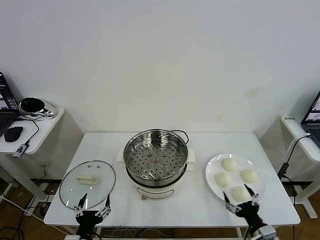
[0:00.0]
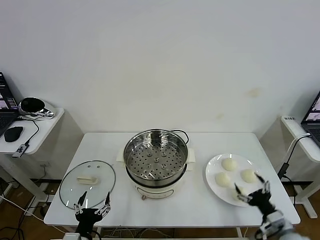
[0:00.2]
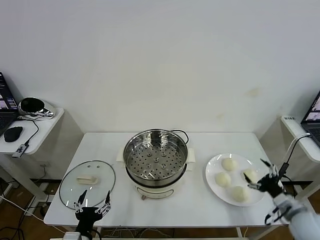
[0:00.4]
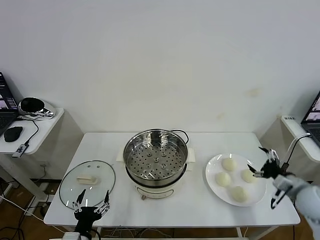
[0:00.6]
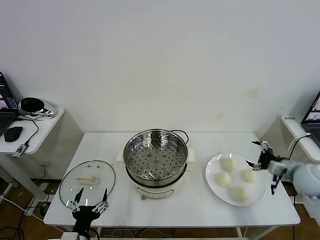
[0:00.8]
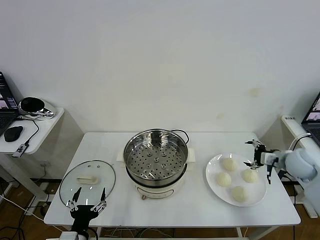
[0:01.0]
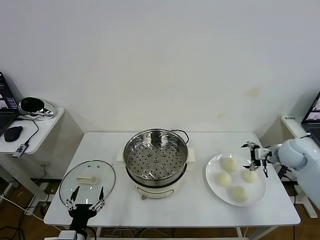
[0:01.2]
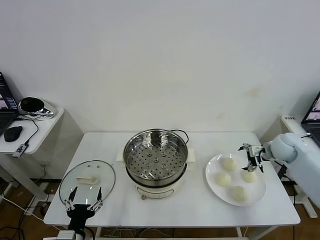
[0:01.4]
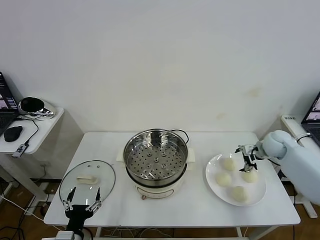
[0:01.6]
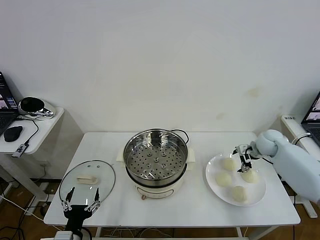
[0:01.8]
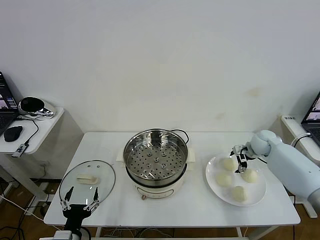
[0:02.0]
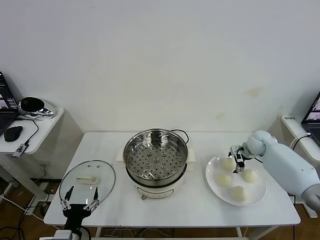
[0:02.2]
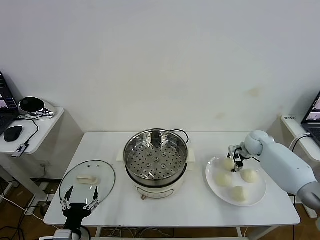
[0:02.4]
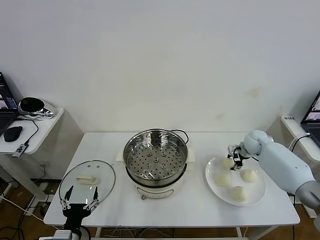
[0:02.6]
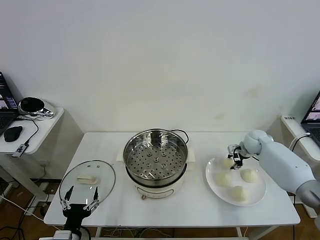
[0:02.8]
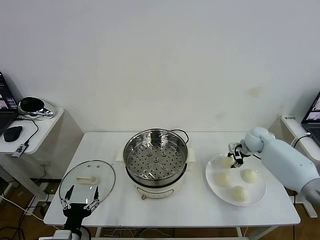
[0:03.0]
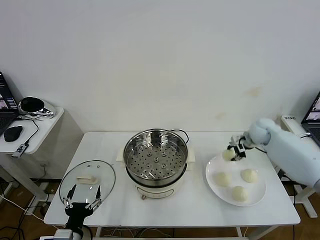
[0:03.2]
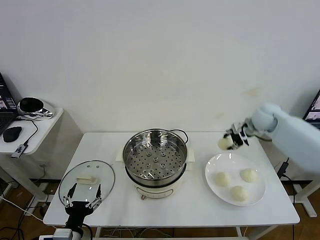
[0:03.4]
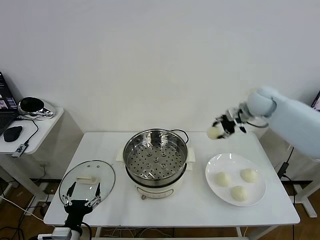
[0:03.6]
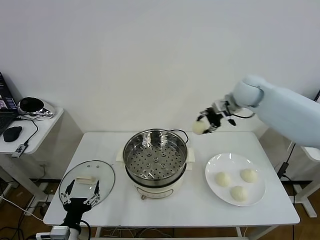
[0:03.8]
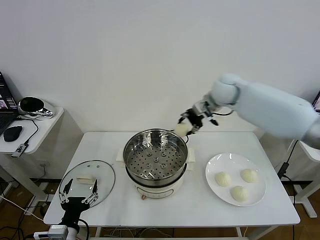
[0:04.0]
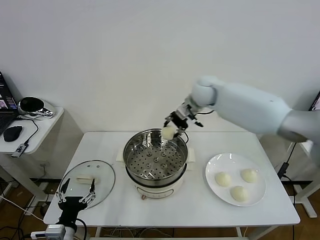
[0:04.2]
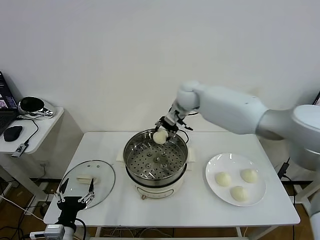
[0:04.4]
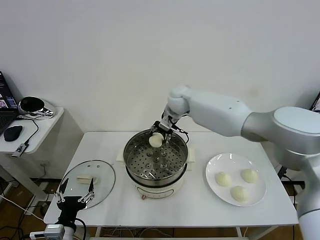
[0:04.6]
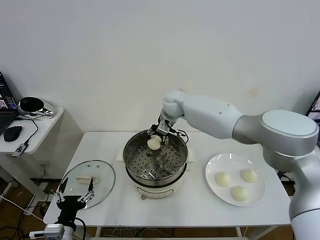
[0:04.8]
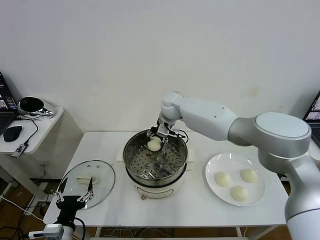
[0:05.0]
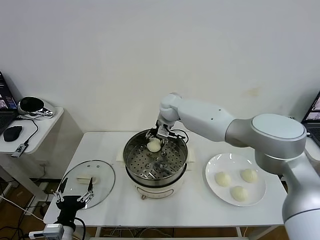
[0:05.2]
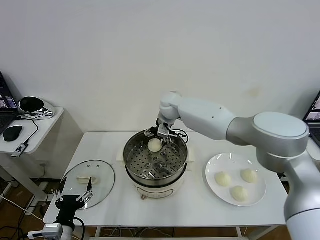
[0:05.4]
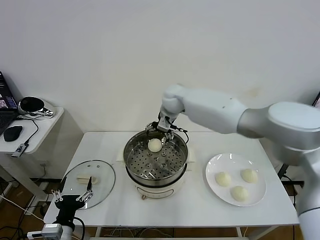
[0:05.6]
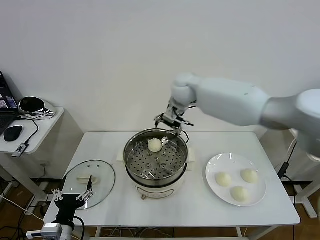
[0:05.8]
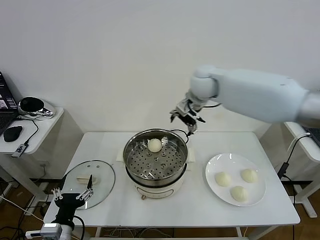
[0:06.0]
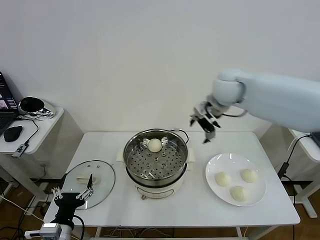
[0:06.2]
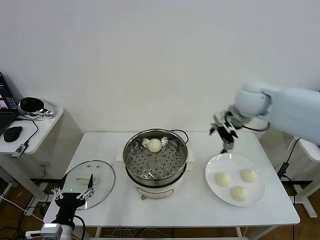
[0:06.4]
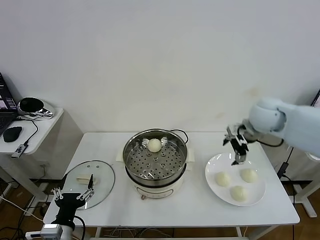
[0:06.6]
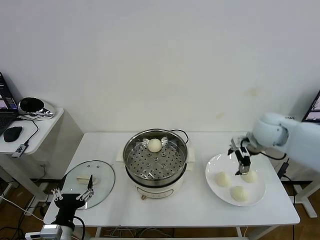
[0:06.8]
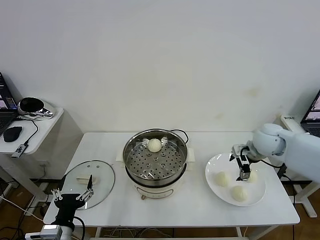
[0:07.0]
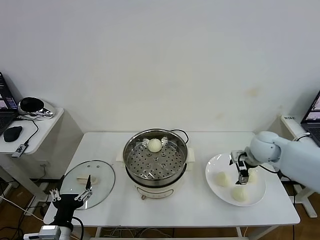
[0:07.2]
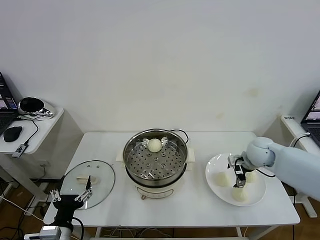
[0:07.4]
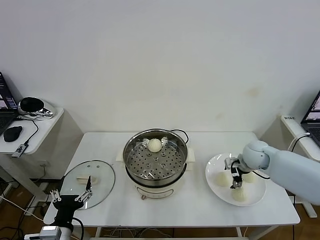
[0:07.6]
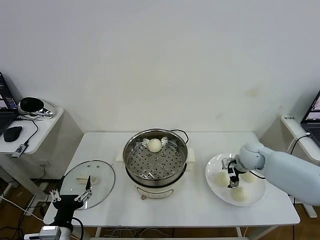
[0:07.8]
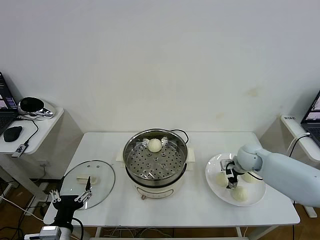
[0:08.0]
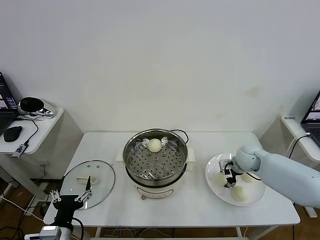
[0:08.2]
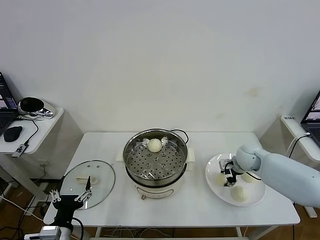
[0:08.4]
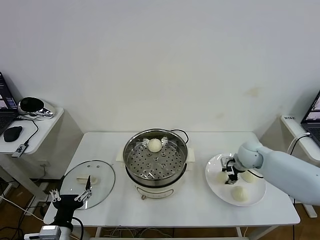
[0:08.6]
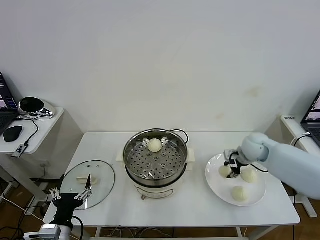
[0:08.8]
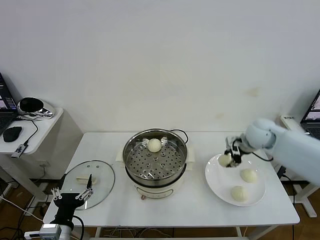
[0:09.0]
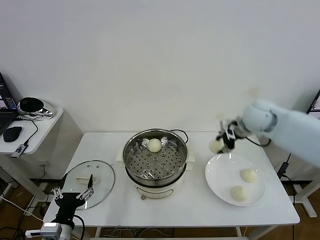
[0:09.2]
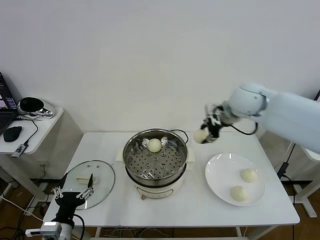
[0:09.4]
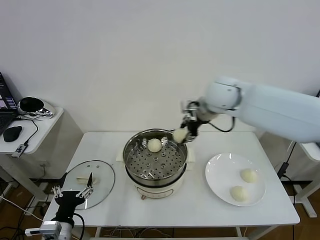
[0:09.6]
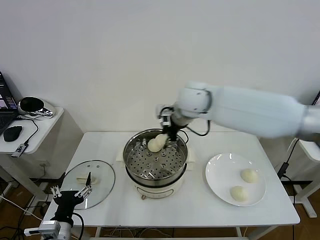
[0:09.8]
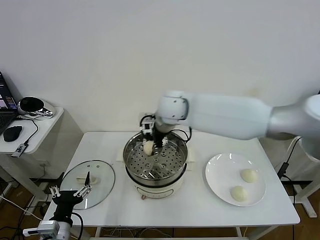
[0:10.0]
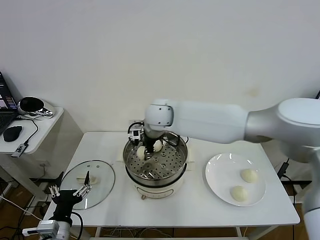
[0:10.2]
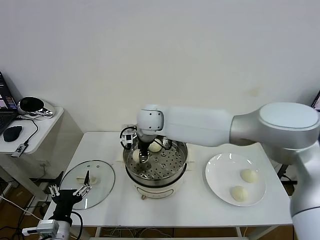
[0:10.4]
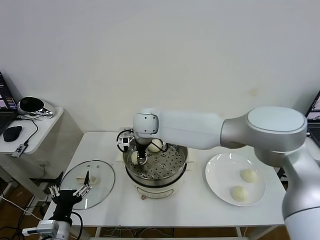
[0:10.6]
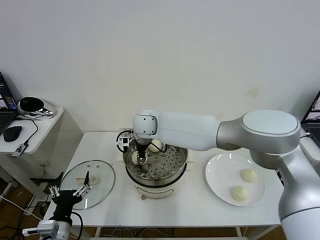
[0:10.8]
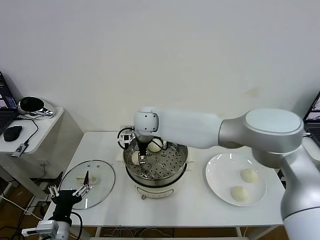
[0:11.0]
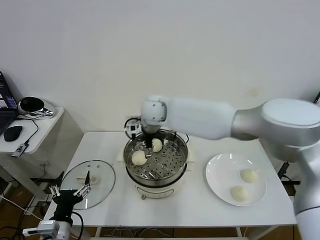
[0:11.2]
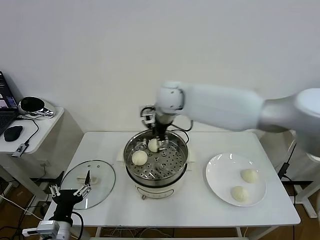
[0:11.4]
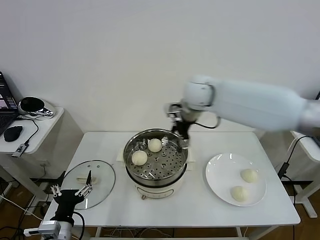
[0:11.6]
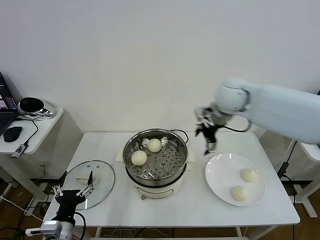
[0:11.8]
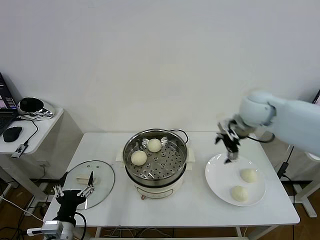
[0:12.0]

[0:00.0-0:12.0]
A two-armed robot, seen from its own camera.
Task of the whole recording: take steamed baozi put them in steamer then cover it.
Step, 0.0 to 2.6 s: Grasp the baozi in the plate with right gripper.
Step, 3.0 to 5.4 s: Place the baozi on the steamer with right gripper.
Step, 5.6 to 8.4 s: Grasp the baozi in the plate with right gripper.
Step, 8.6 to 11.2 s: Place the baozi on the steamer with right gripper.
1.6 to 3.0 s: The right gripper shifts by about 5 cm, and closes its fingers.
3.0 to 4.4 s: The right gripper goes approximately 35 cm to the left and upward.
4.4 to 6.0 s: The right gripper heads upward, to the right and backward, covering approximately 10 cm, and opens its fingers.
6.0 to 7.6 s: The right gripper goes about 30 cm downward and to the right.
7.6 to 9.0 s: The right gripper shifts about 10 cm upward, and closes up.
9.0 to 10.4 s: The right gripper moves to the left, some 35 cm.
10.4 to 12.0 s: The right gripper is displaced to the right by roughly 35 cm, and opens up.

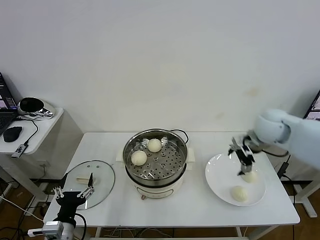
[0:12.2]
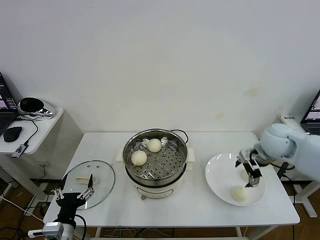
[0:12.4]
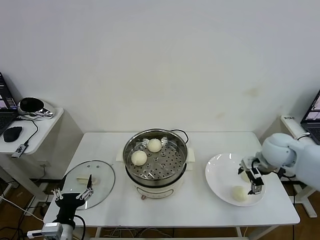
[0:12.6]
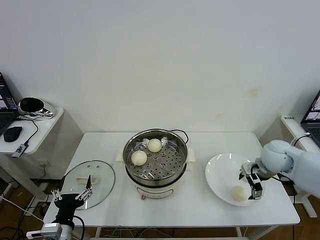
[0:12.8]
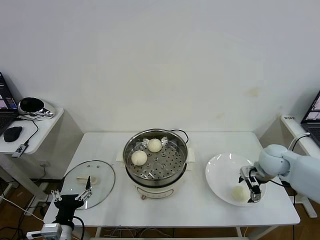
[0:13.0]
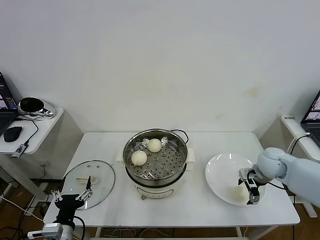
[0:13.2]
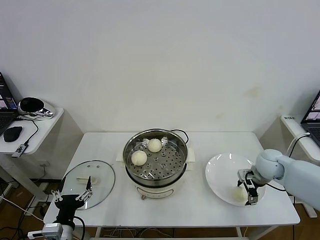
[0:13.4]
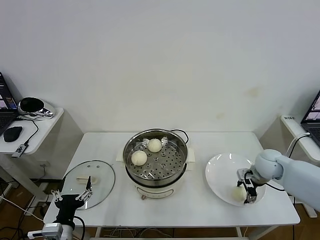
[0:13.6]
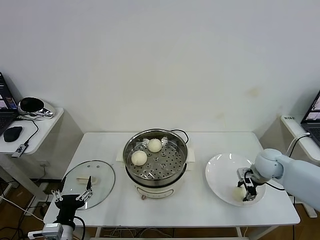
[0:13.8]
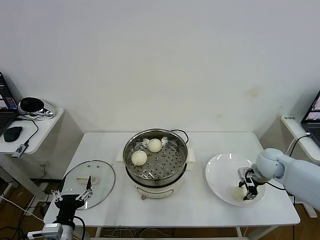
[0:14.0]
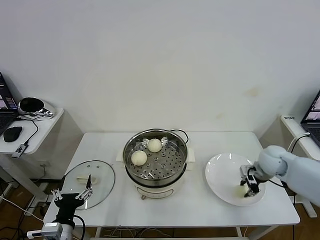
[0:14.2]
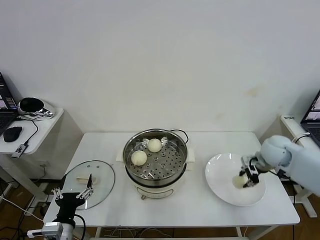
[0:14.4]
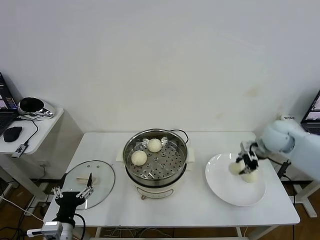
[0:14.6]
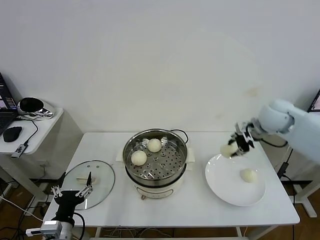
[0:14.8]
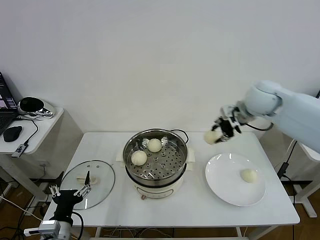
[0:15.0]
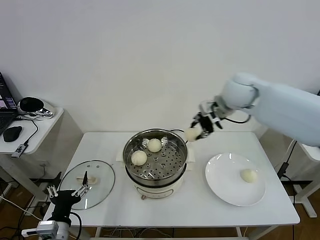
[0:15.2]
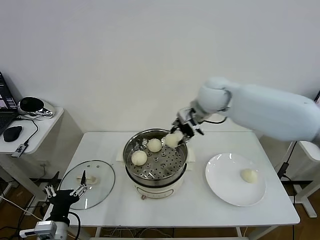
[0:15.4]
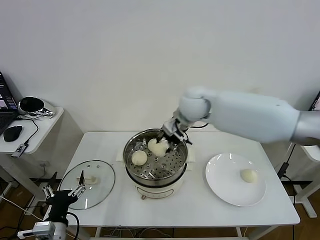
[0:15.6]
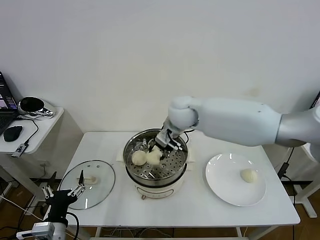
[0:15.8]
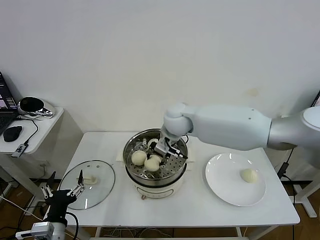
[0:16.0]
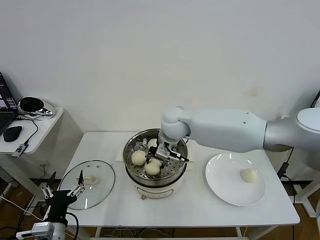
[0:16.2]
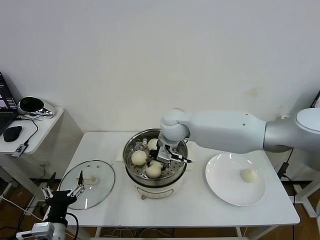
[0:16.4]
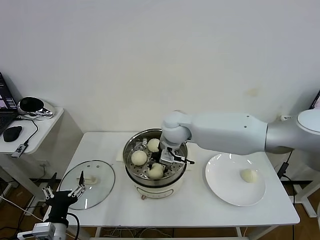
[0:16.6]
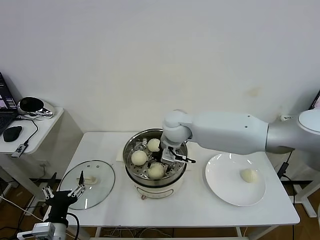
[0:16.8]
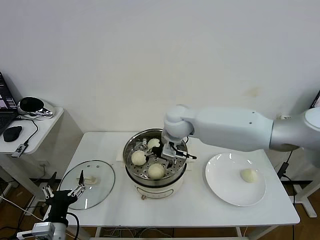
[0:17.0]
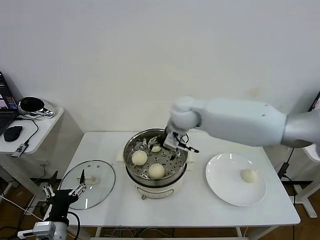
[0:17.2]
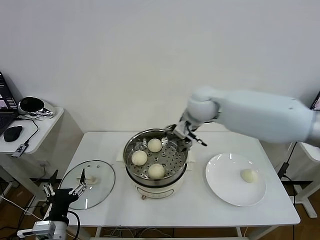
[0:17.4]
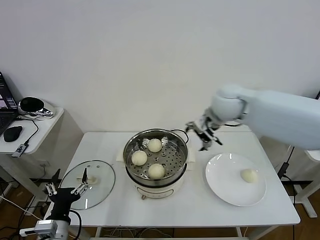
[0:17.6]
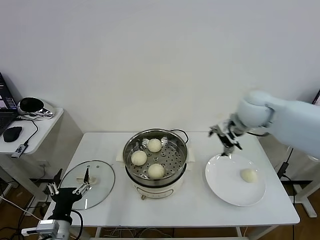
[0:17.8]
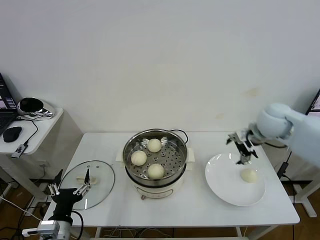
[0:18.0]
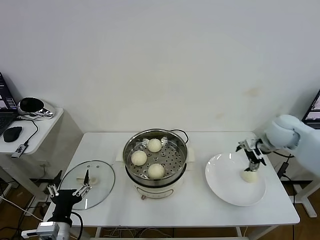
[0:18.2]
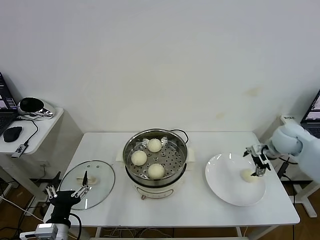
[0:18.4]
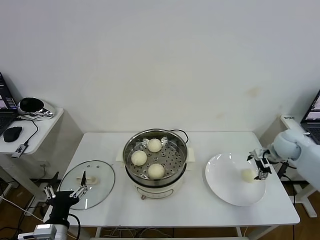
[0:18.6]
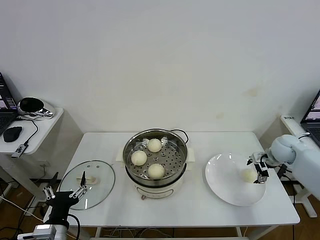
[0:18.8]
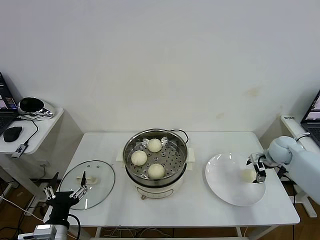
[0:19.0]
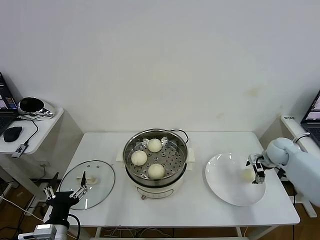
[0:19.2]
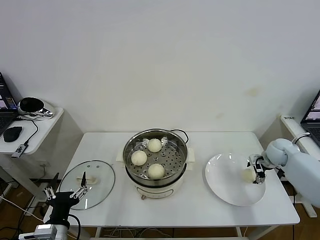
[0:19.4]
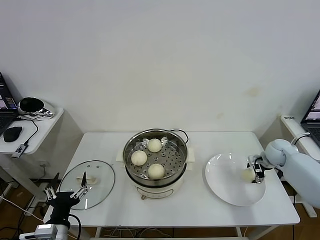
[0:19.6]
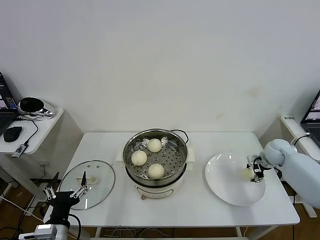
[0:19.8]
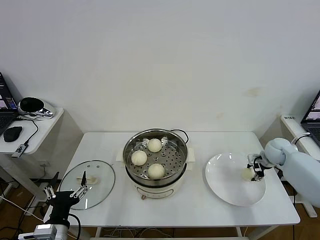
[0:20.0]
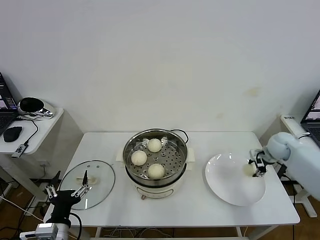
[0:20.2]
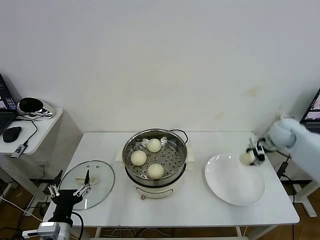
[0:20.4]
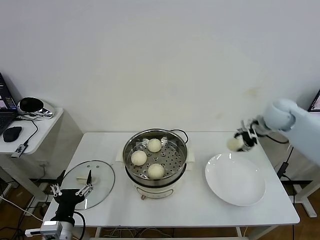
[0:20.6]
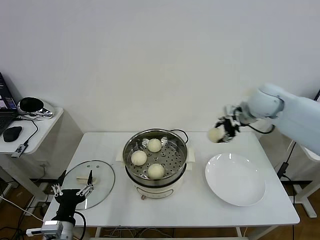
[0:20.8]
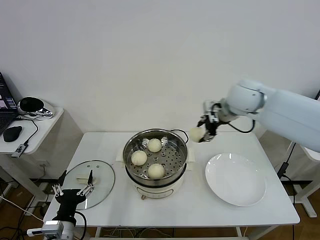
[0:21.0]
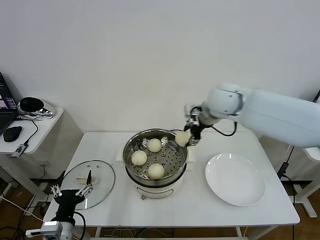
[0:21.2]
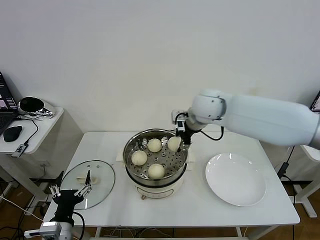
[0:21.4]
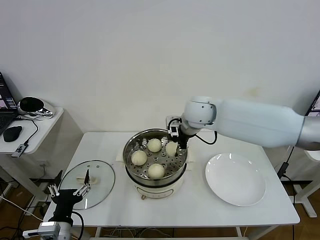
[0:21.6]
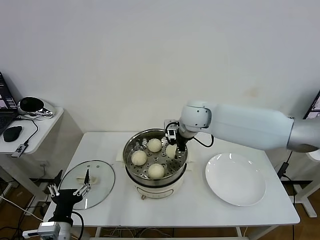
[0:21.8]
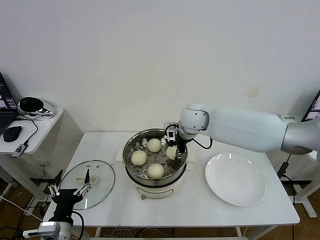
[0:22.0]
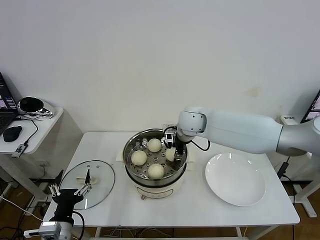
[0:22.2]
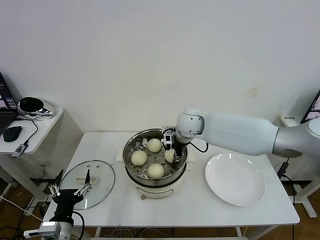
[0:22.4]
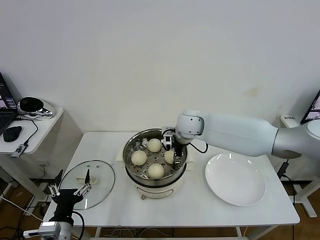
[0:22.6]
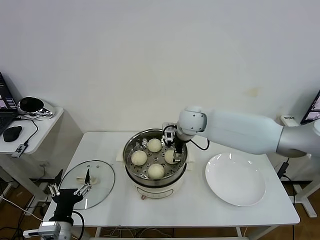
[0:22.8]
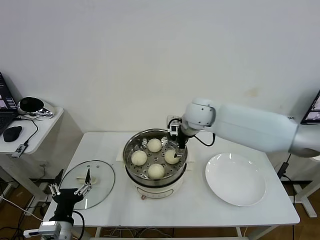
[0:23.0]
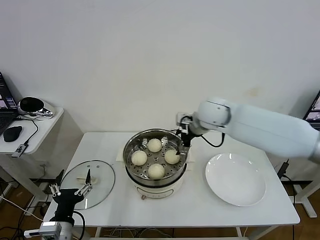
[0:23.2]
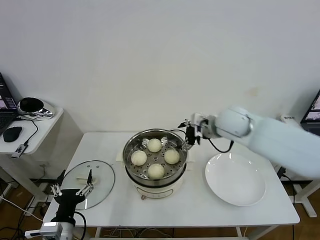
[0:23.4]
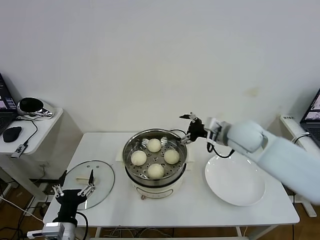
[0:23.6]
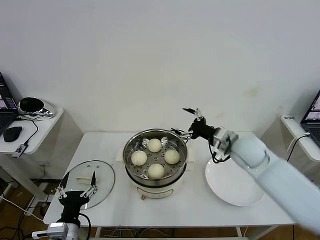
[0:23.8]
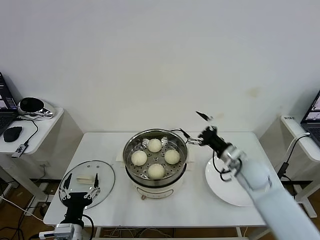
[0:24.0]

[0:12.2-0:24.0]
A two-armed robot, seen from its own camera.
Task of the whole recording: take steamed baozi put them in steamer then cover it.
Step, 12.2 to 14.0 s: Grasp the baozi in the plate with right gripper.
Step, 14.2 to 16.8 s: Place the baozi on the steamer with right gripper.
Step, 17.0 to 20.0 s: Grasp the baozi in the plate with right gripper.
Step, 20.2 to 22.8 s: Place the baozi on the steamer with right gripper.
12.2 to 13.6 s: The right gripper goes some 15 cm downward.
13.6 to 15.2 s: The right gripper goes approximately 30 cm upward and to the left, and closes.
15.2 to 16.6 s: The right gripper shifts about 20 cm to the left and downward.
16.6 to 18.2 s: The right gripper heads to the right, covering roughly 35 cm, and opens up.
18.2 to 19.6 s: The right gripper travels downward and to the right by some 15 cm.
19.6 to 21.0 s: The right gripper heads upward and to the left, covering approximately 35 cm, and closes its fingers.
21.0 to 22.6 s: The right gripper travels to the left and downward by about 20 cm.
22.6 to 24.0 s: The right gripper shifts approximately 25 cm to the right, backward and downward.
